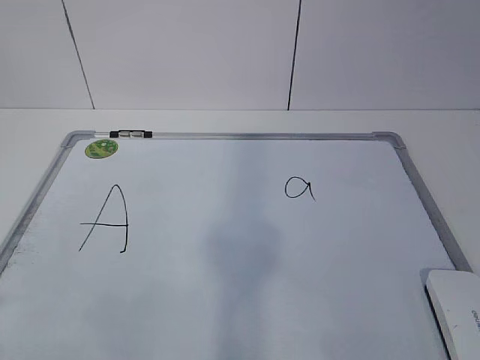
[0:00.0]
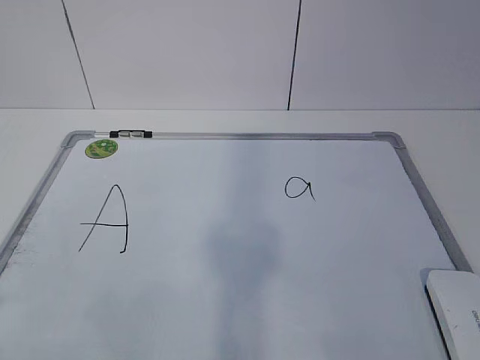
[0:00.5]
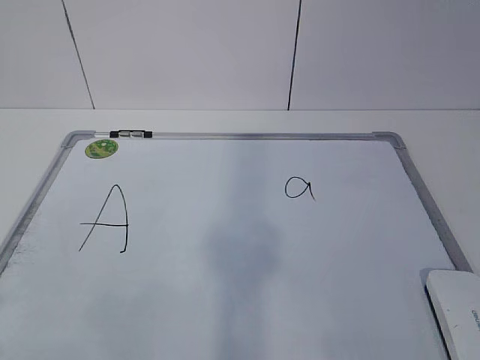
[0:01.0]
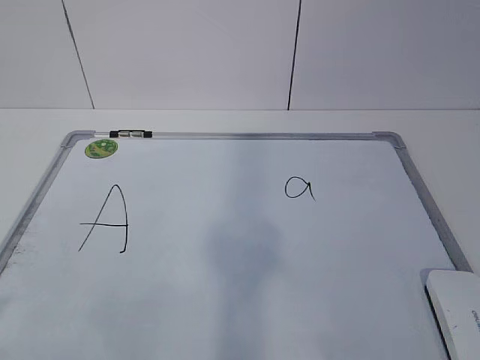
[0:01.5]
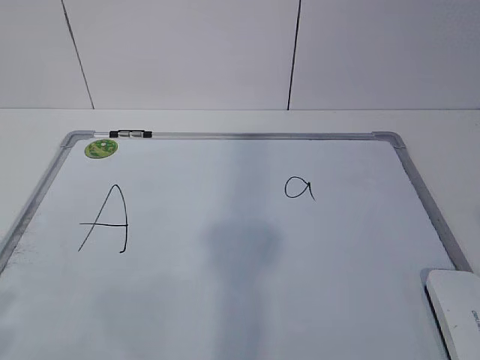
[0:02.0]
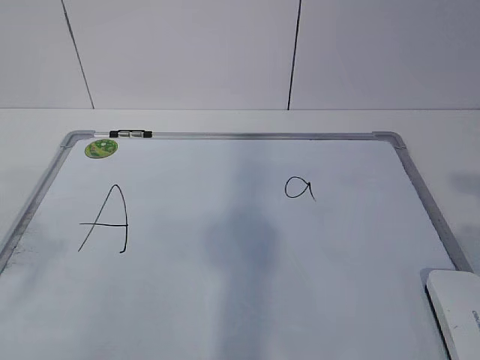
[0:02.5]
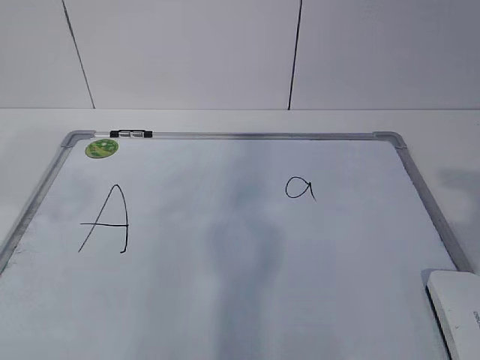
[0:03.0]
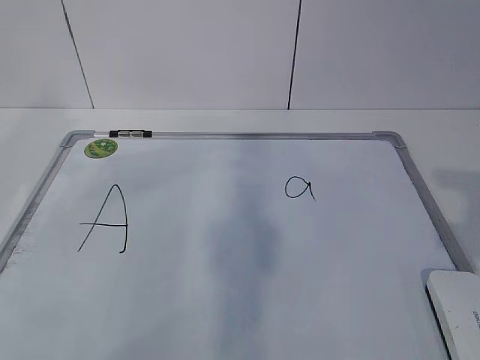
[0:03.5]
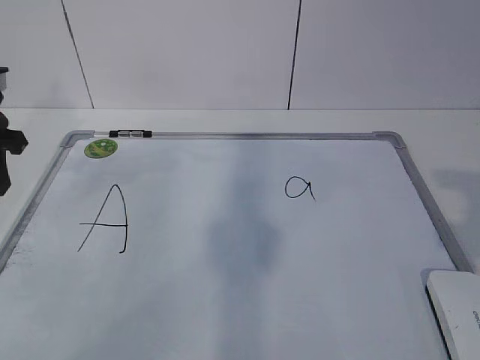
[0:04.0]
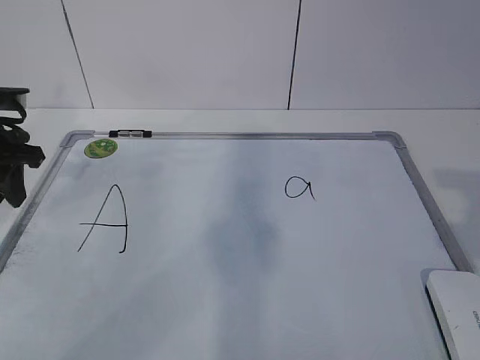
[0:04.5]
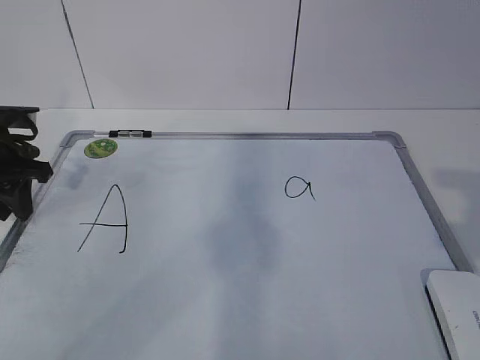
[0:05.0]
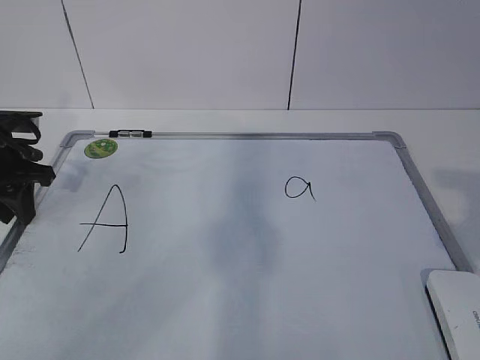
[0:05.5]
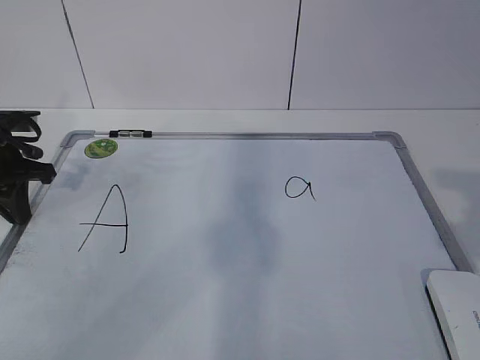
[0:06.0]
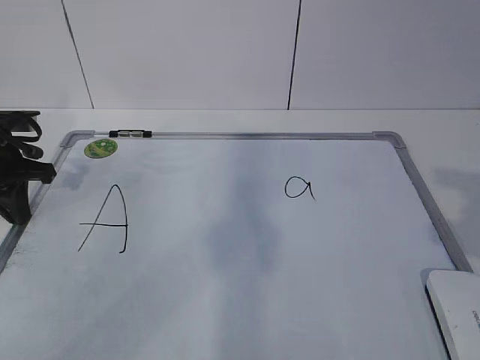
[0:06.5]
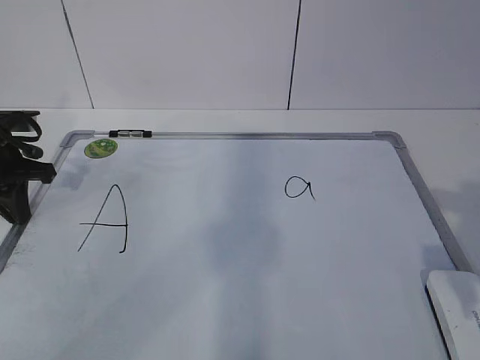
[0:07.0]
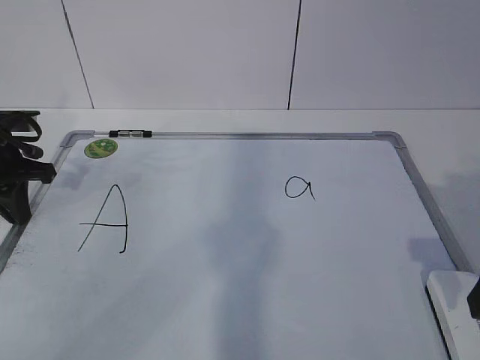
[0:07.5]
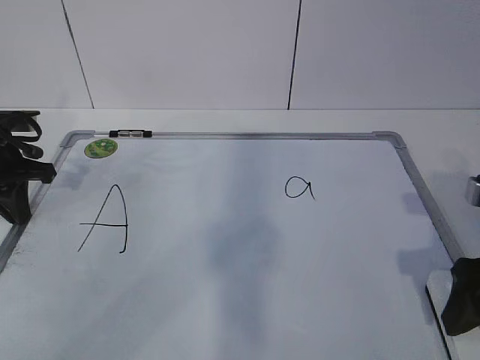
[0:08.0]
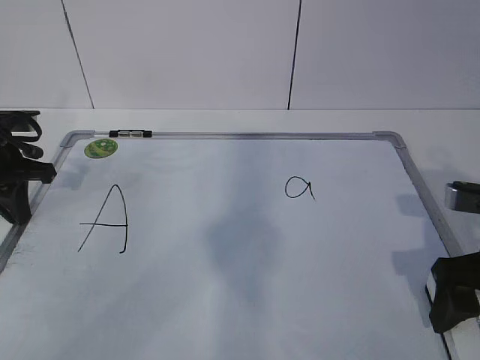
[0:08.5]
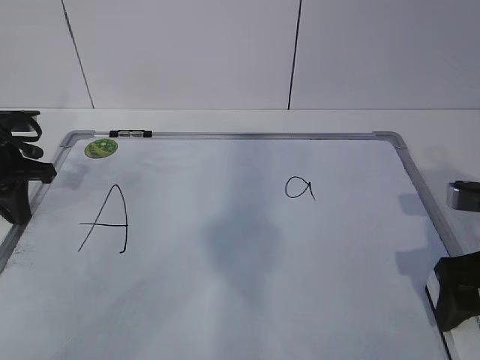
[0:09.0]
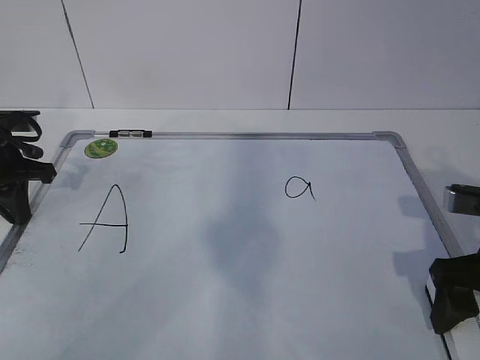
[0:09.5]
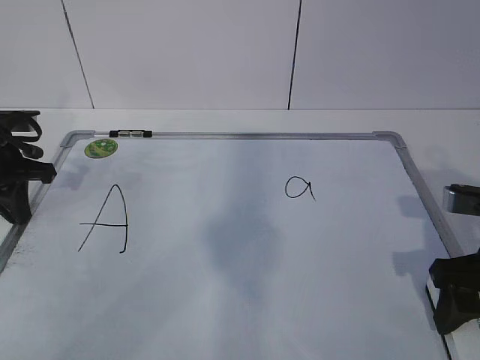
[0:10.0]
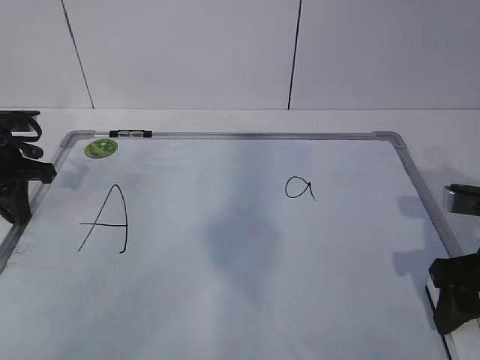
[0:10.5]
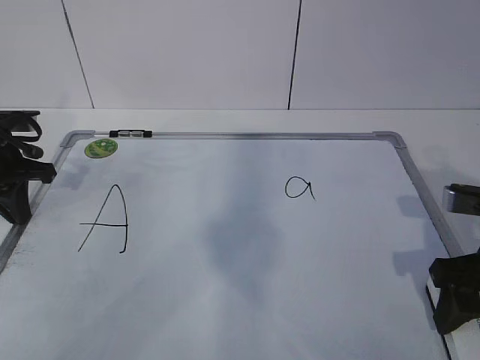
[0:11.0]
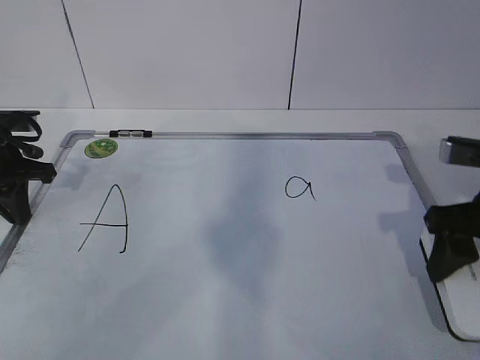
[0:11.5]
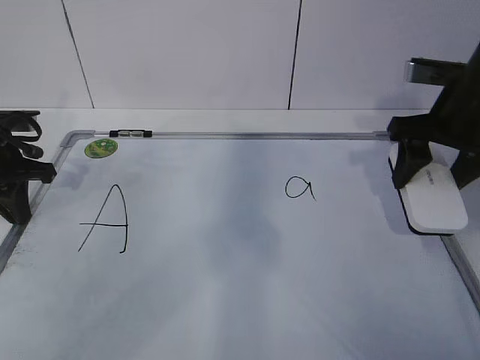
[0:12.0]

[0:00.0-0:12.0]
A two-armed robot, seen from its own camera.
Task of the whole recording: pick up the eraser on the blackboard and erase the letter "a".
Step, 0:00.0 to 0:04.5: Hold the drawing board steady with your left hand.
Step, 0:05.0 to 0:08.0: Grab the eraser with your right hand.
0:02.0 to 0:04.0: The left gripper shifts some 35 cm forward.
0:04.0 to 0:06.0: The left gripper goes about 5 cm downward, and closes up.
0:06.0 to 0:08.0: The right gripper is displaced downward and forward by roughly 15 cm, and opens up.
0:08.0 to 0:10.0: The right gripper closes.
0:10.0 to 0:12.0: The right gripper goes roughly 15 cm forward and upward.

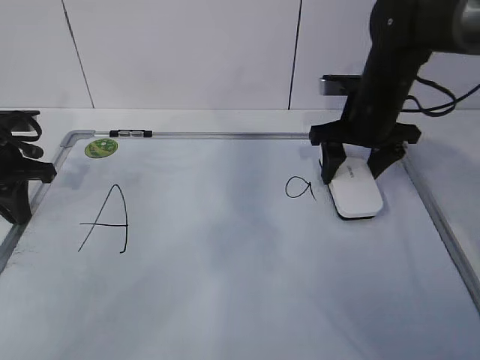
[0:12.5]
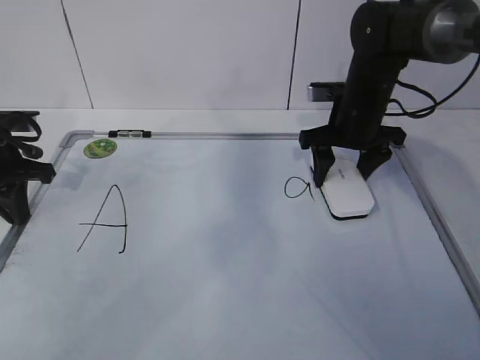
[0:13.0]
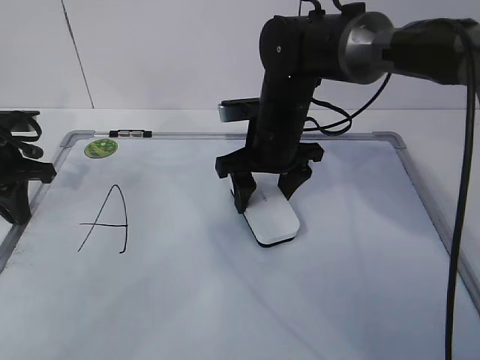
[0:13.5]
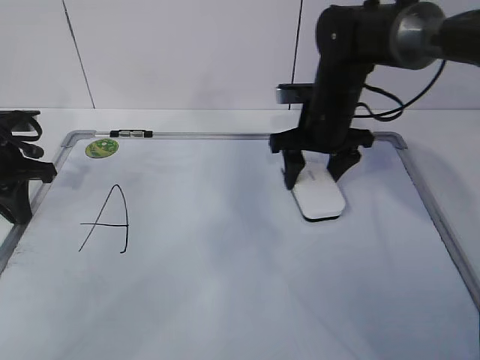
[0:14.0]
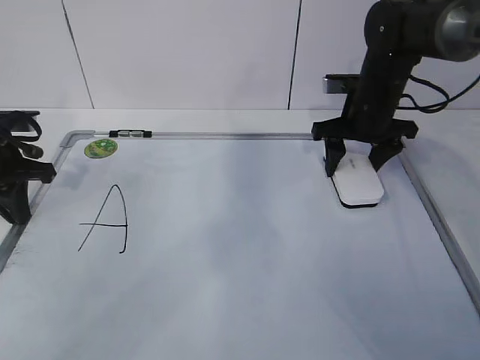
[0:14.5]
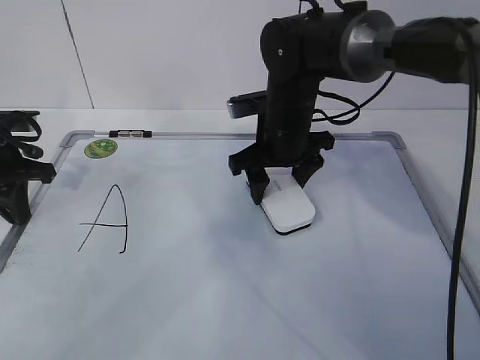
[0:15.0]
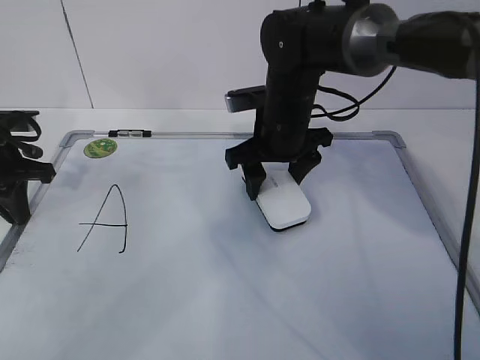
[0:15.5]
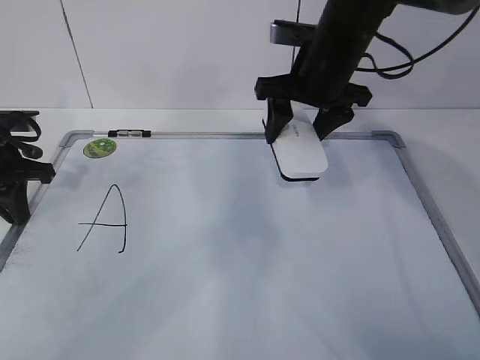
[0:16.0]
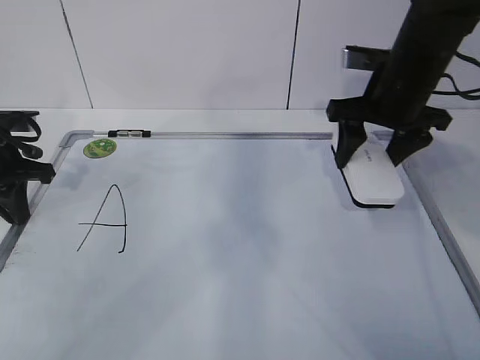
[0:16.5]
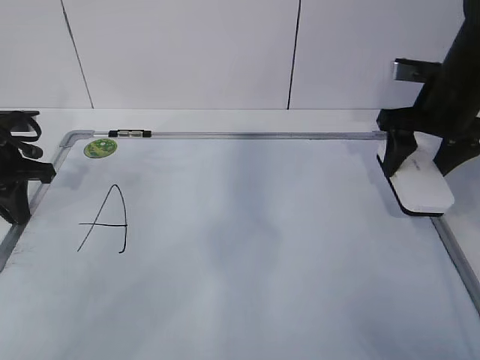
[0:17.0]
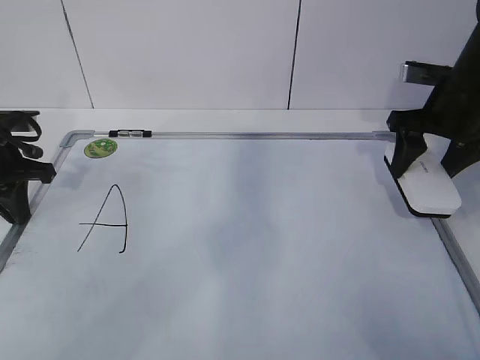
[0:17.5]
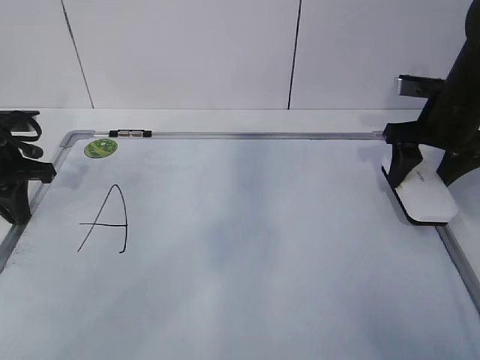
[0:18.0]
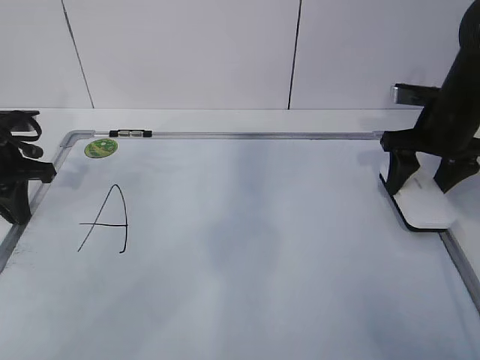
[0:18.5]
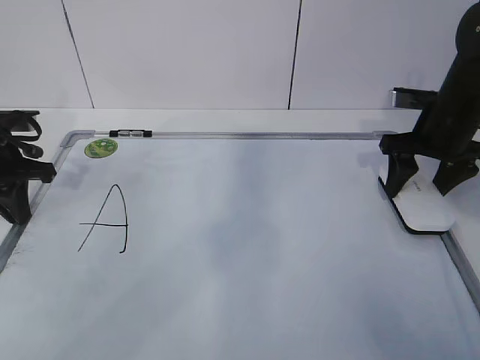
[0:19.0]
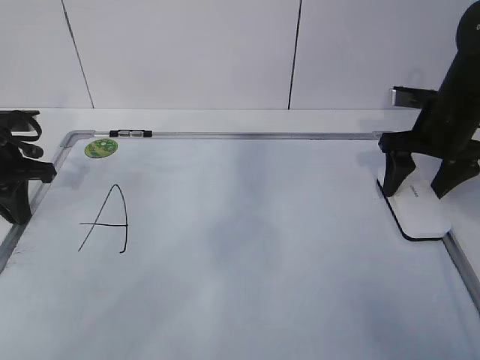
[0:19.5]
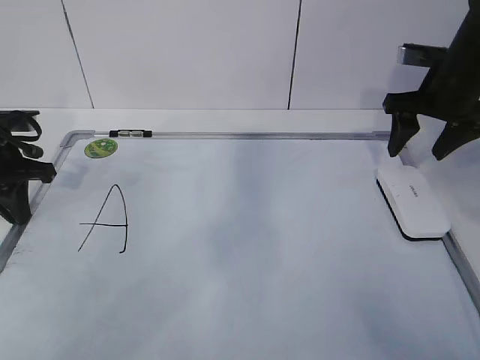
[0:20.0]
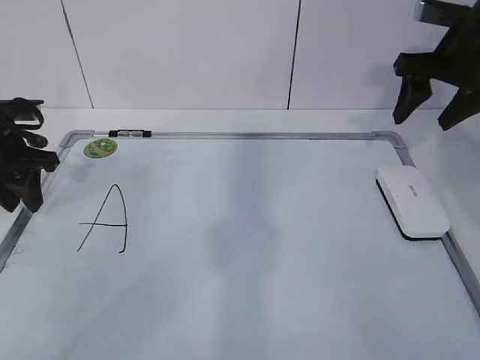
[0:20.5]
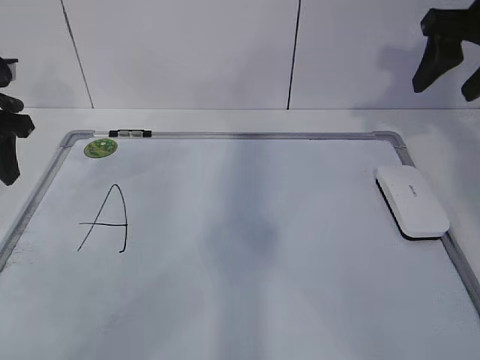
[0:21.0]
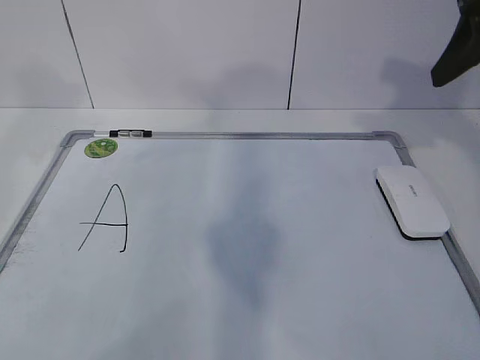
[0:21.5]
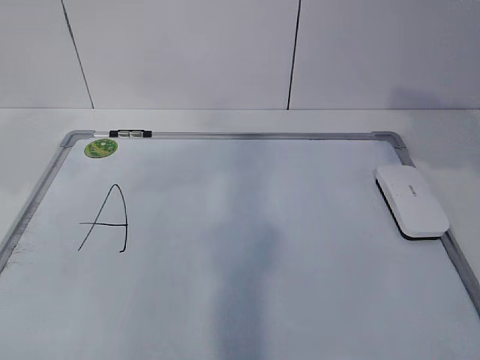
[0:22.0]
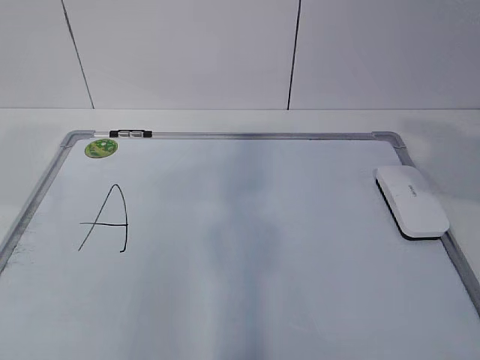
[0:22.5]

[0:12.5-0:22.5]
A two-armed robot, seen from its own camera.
Task of the whole recording: pick up the eraser on the blackboard and erase the letter "a".
Step, 0:13.0 to 0:16.0: Put down the eraser with your right hand.
0:12.5 to 0:14.5: The right gripper goes to the left and returns, approximately 15 cm each way.
0:14.5 to 0:16.5: The right gripper travels upward and backward by some 10 cm, and travels to the left and back again, about 10 cm each way.
0:16.5 to 0:18.5: The right gripper is displaced to the right by about 10 cm.
0:18.5 to 0:20.5: The left gripper opens its fingers. Meanwhile the right gripper shifts roughly 10 cm upward, and opens and closes again.
0:20.5 to 0:22.5: The left gripper travels backward and upward by about 30 cm, while the right gripper goes roughly 25 cm backward.

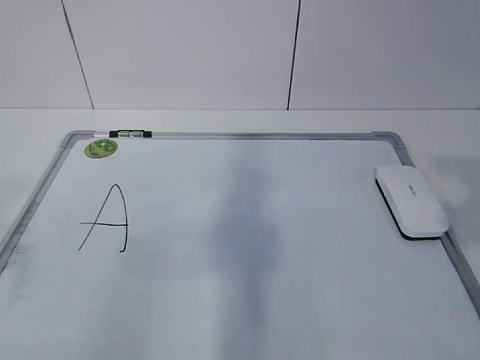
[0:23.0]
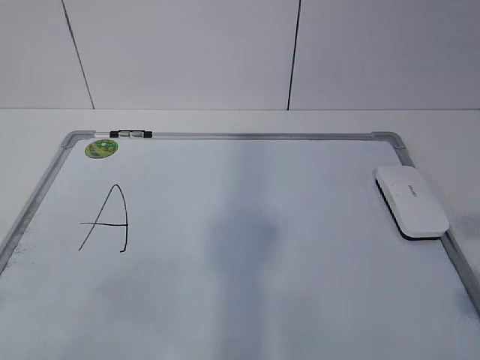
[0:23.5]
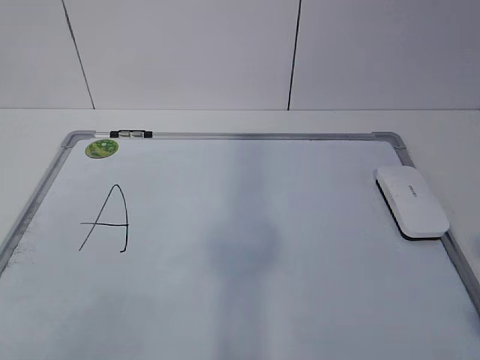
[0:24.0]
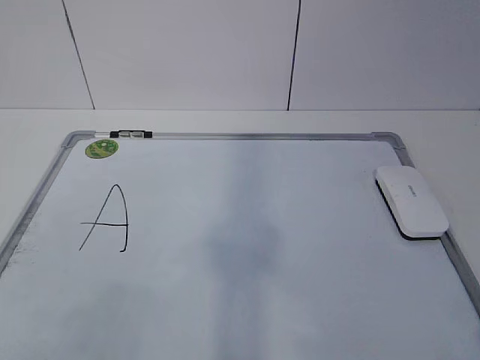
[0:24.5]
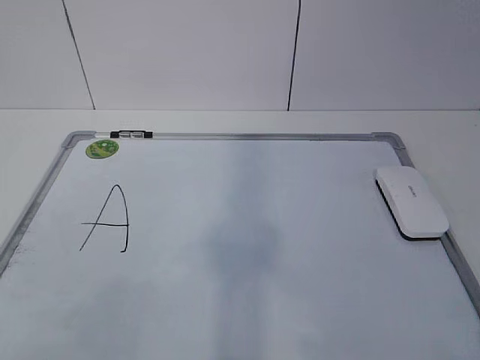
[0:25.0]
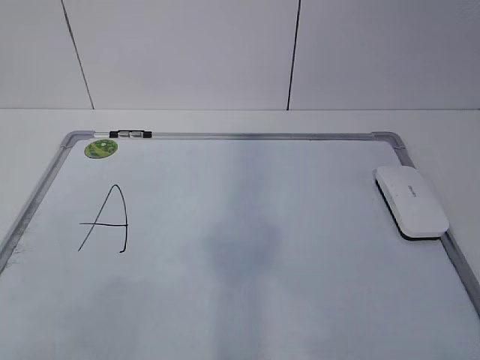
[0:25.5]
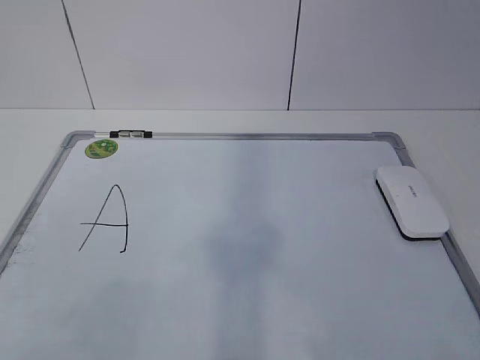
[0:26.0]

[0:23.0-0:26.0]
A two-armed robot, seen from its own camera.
Task of the whole recording: pick up the eraser on the blackboard and erase the letter "a".
0:24.5 to 0:26.0: Both grippers stay about where they are.
